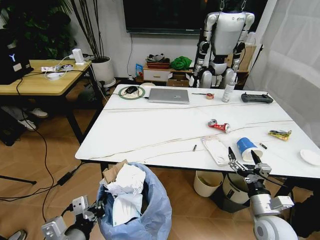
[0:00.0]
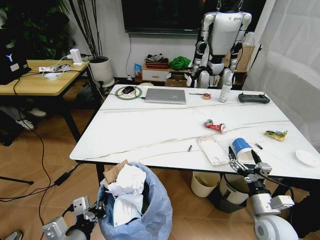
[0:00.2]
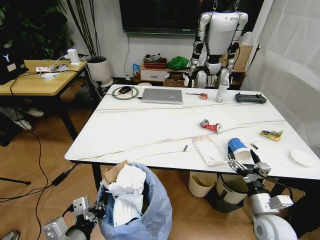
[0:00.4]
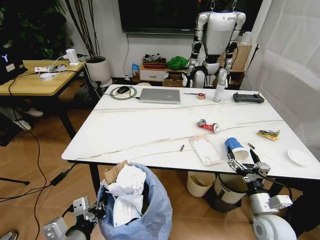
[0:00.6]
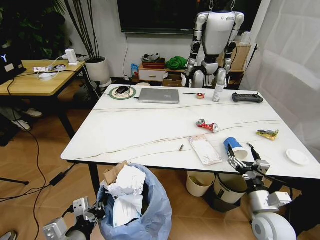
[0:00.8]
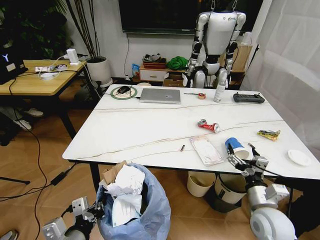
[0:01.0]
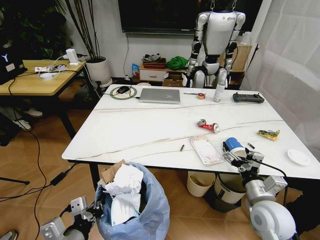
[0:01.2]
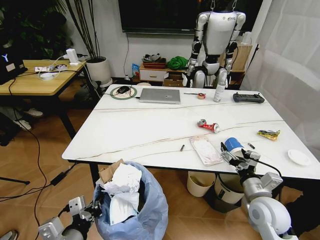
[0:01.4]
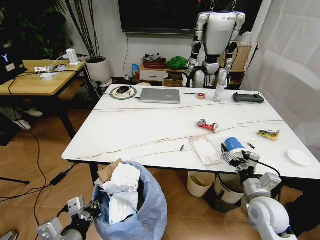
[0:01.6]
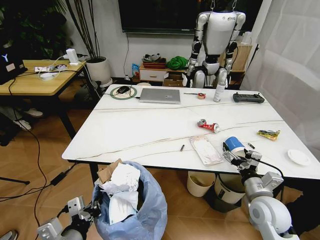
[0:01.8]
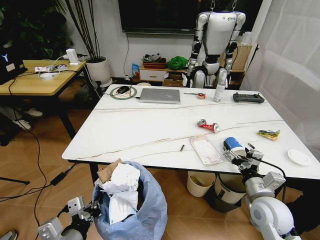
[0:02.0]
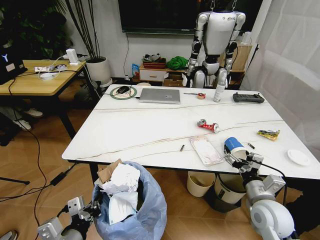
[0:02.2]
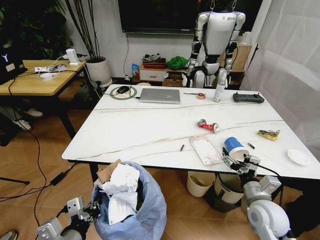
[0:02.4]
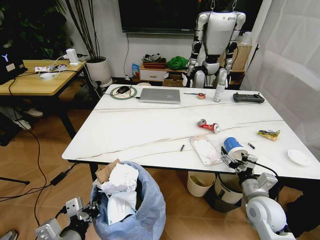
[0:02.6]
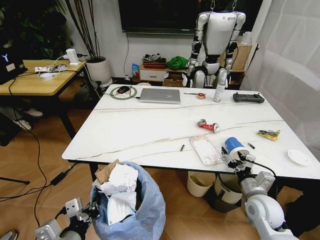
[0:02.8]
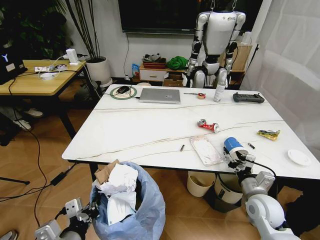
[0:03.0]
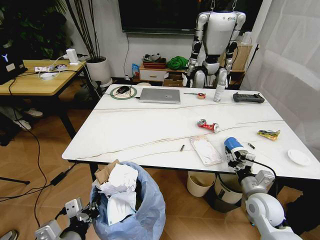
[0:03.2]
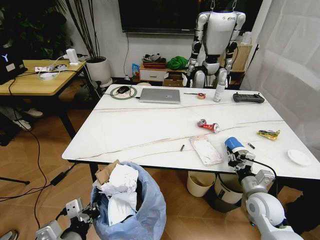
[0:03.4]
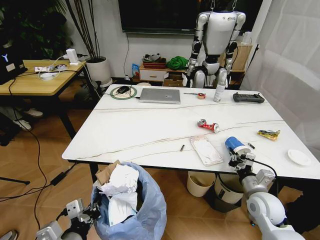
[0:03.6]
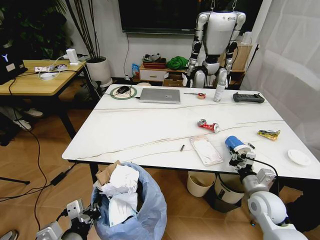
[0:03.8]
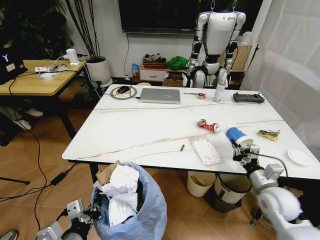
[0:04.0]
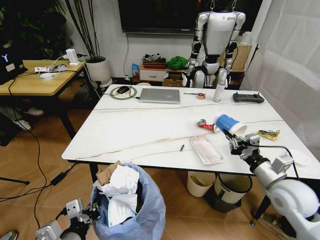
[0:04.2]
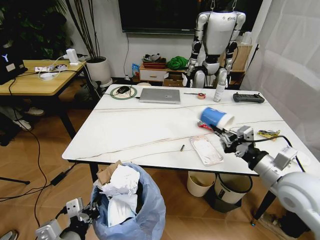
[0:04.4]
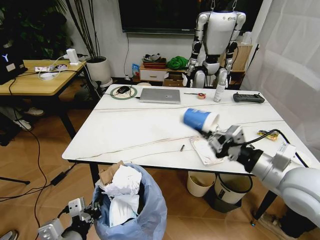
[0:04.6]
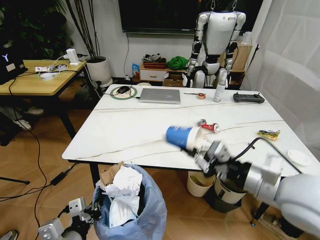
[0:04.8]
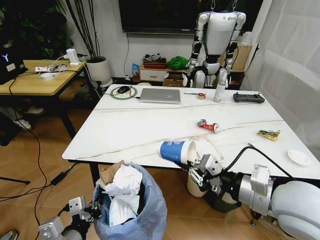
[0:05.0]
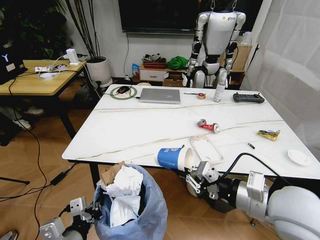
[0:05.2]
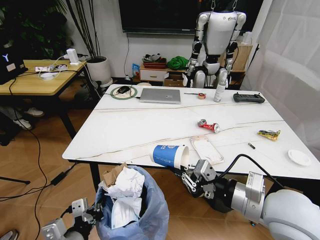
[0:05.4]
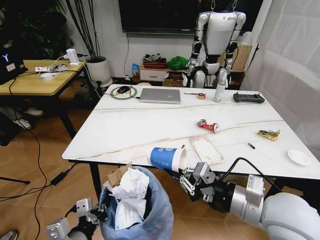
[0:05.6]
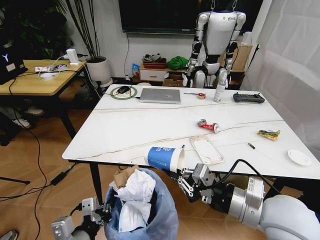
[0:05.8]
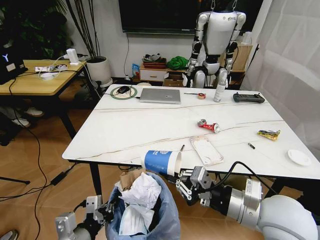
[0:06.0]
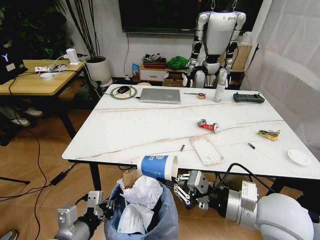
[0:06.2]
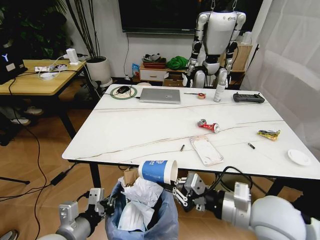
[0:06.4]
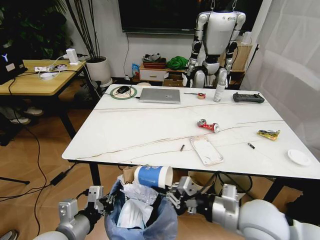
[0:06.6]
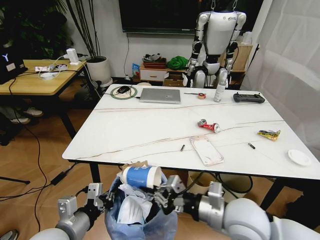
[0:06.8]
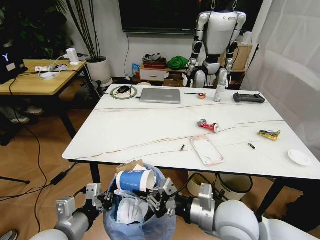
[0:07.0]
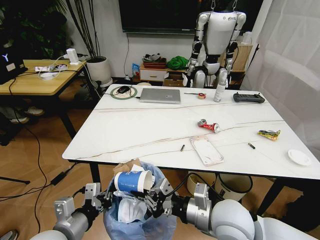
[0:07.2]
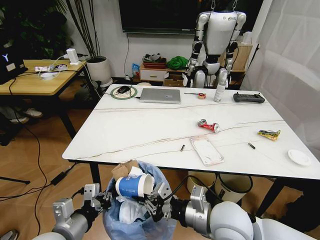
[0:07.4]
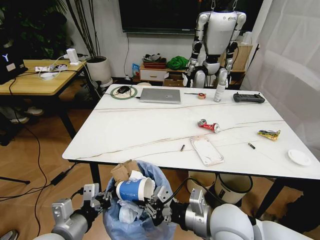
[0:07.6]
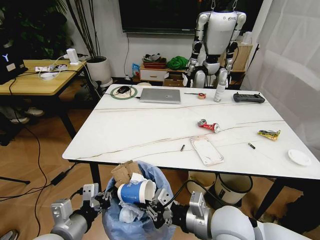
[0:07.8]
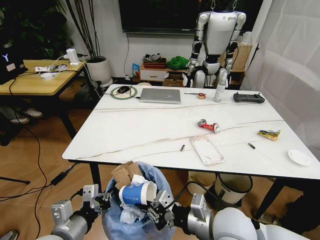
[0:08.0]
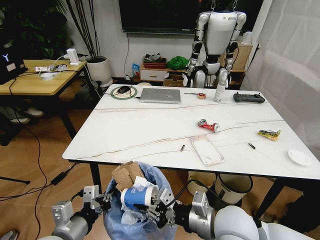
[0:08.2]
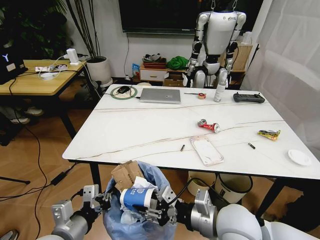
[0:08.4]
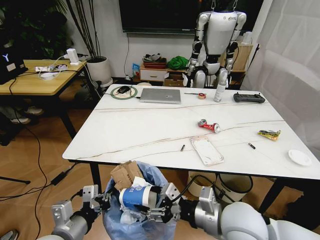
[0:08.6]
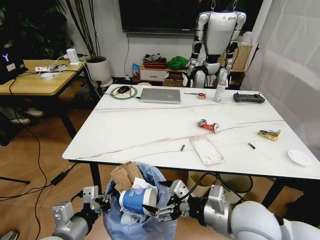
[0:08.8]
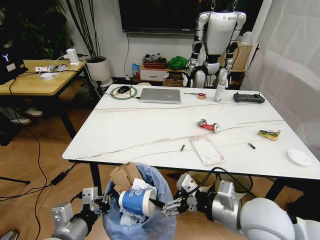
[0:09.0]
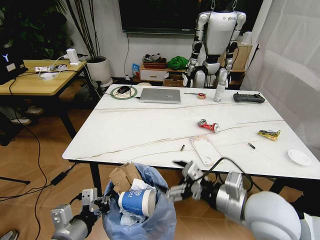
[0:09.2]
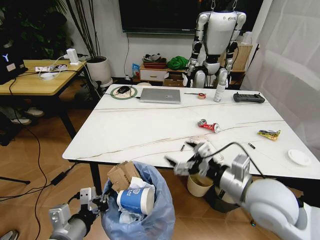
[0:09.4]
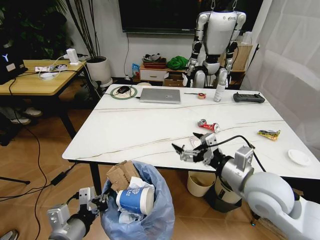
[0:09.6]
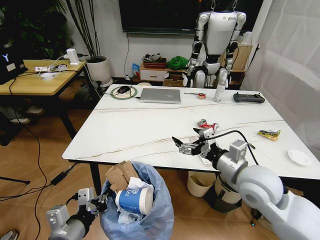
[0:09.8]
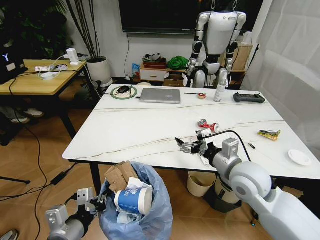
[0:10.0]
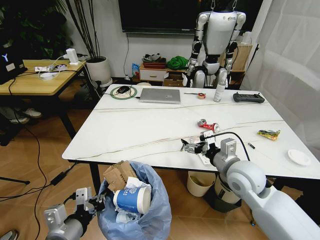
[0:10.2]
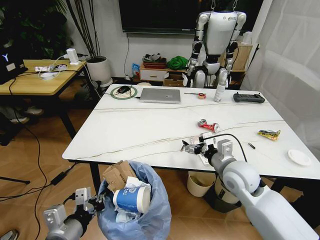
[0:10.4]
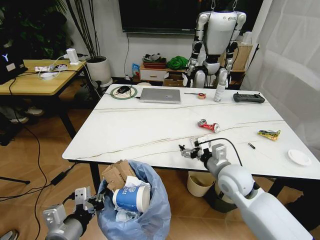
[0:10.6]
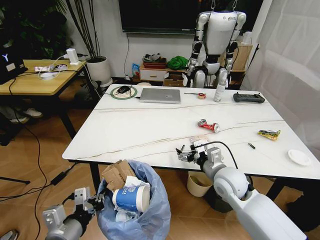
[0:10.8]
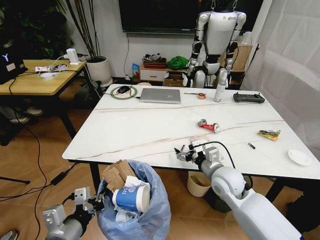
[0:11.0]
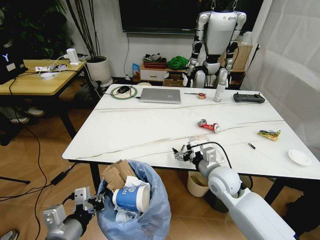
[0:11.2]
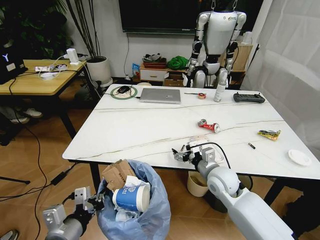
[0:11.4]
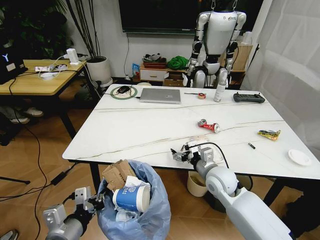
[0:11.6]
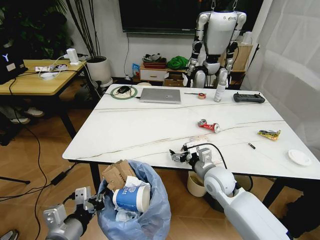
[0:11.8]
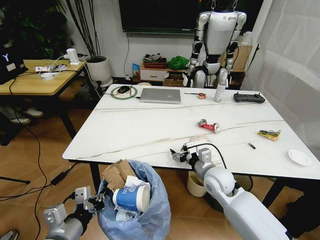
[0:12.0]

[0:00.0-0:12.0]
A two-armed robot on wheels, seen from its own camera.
Task of the whole recording: Pick up the trash bin and place the trash from the table into it.
0:00.0 to 0:01.6: The right gripper changes place by some 5 cm.
0:01.6 to 0:03.0: The right gripper closes up.
0:03.0 to 0:04.4: The right gripper shifts some 15 cm upward, and closes its fingers.
0:04.4 to 0:06.0: The right gripper goes approximately 10 cm to the left and backward.
0:06.0 to 0:07.6: The right gripper goes roughly 10 cm to the left and downward.
0:07.6 to 0:09.0: The right gripper is displaced to the right by some 5 cm, and opens its fingers.
0:09.0 to 0:10.4: The right gripper is displaced forward by roughly 15 cm.
0:10.4 to 0:12.0: The right gripper is displaced downward by approximately 5 cm.

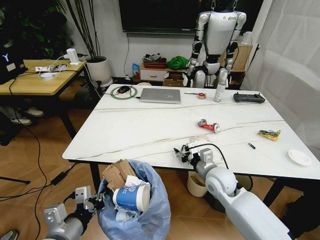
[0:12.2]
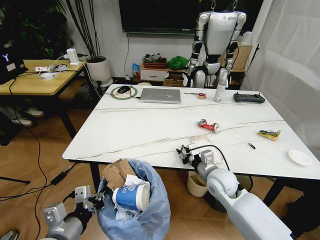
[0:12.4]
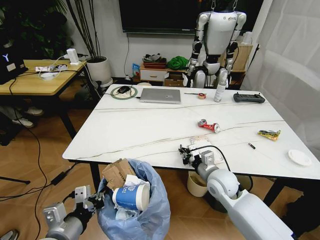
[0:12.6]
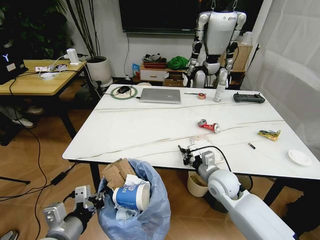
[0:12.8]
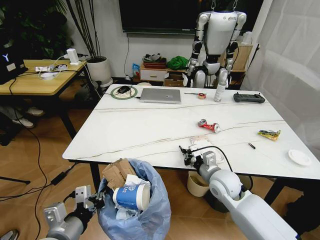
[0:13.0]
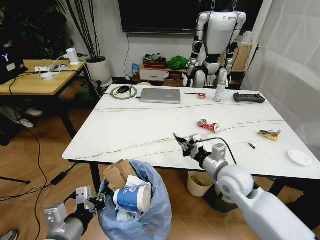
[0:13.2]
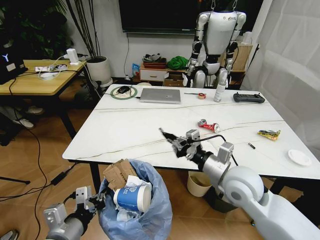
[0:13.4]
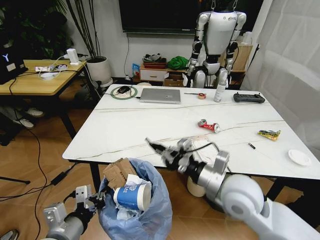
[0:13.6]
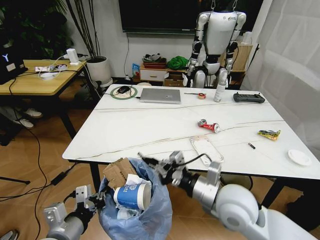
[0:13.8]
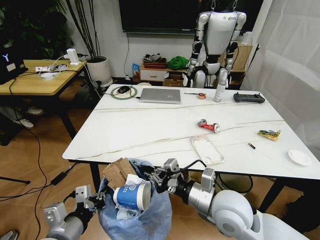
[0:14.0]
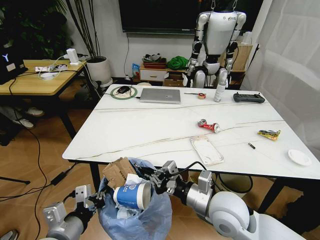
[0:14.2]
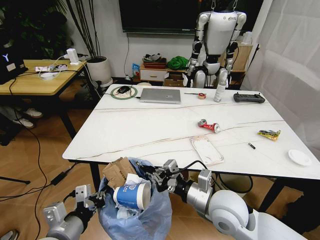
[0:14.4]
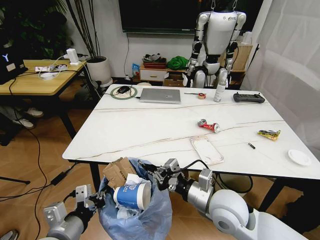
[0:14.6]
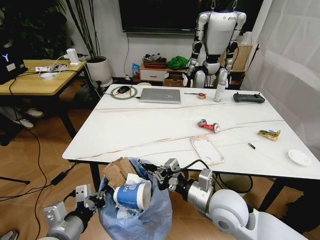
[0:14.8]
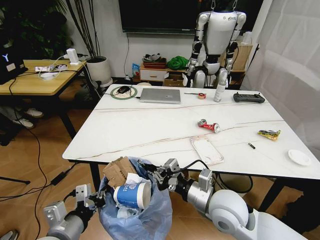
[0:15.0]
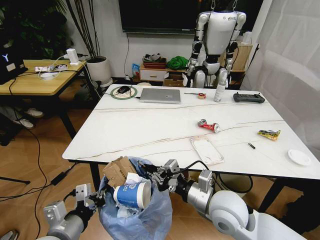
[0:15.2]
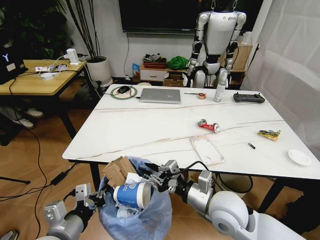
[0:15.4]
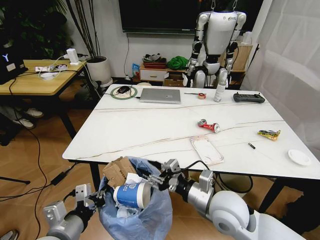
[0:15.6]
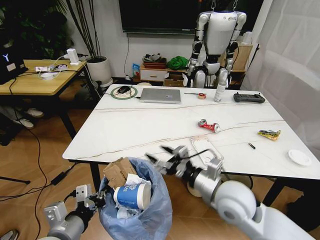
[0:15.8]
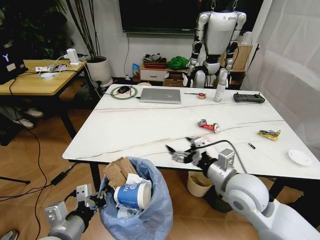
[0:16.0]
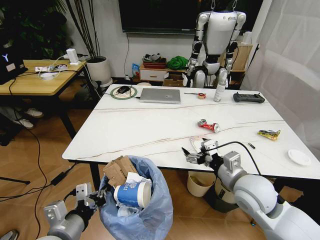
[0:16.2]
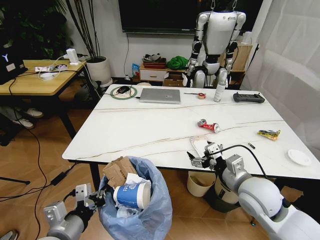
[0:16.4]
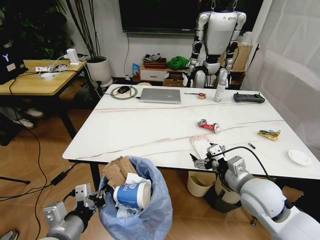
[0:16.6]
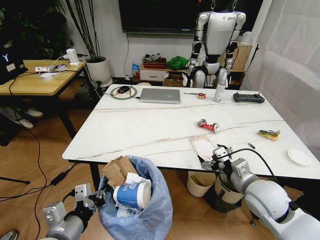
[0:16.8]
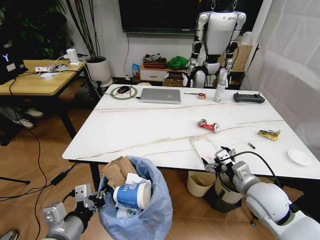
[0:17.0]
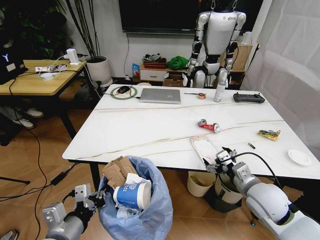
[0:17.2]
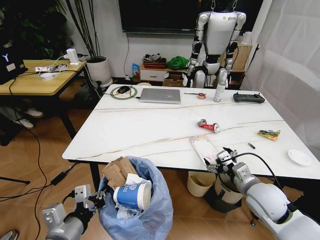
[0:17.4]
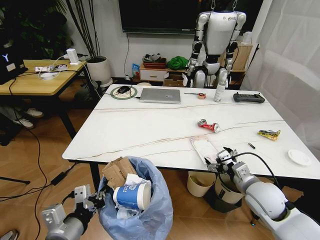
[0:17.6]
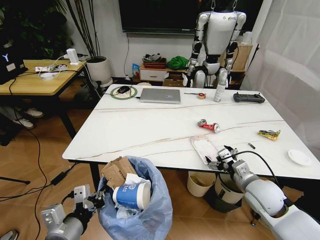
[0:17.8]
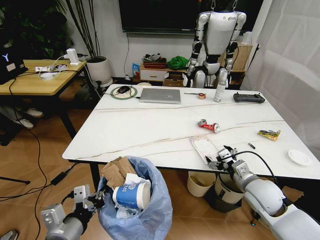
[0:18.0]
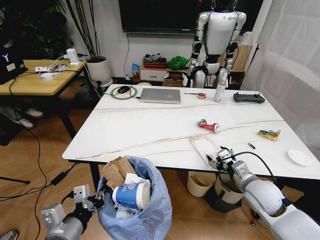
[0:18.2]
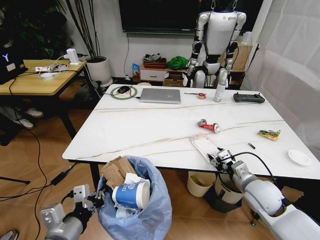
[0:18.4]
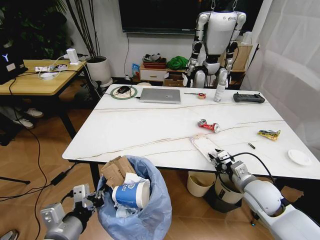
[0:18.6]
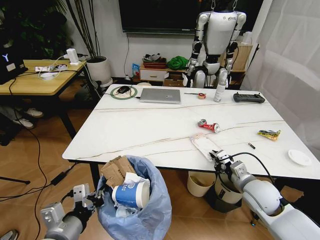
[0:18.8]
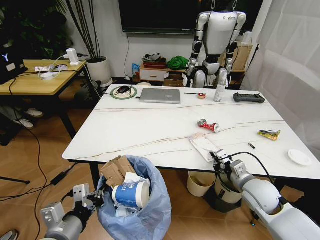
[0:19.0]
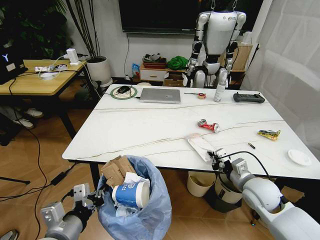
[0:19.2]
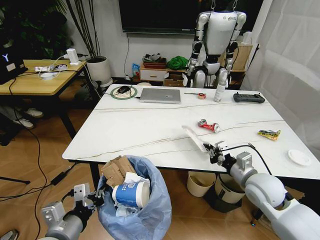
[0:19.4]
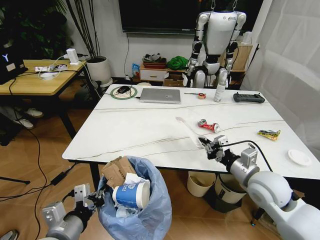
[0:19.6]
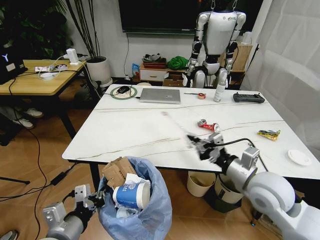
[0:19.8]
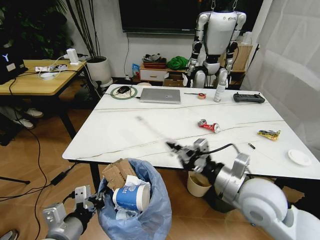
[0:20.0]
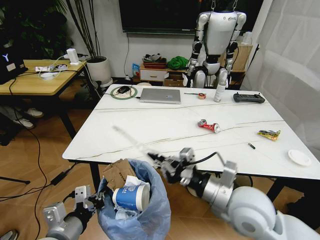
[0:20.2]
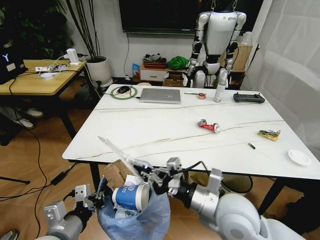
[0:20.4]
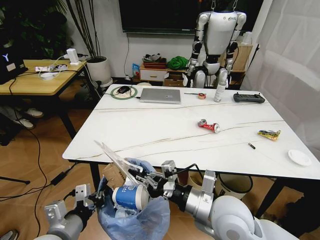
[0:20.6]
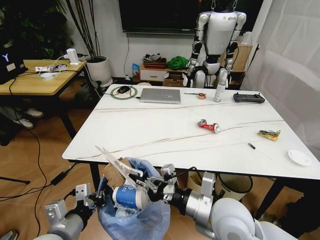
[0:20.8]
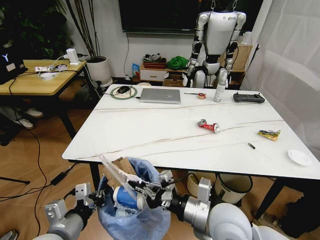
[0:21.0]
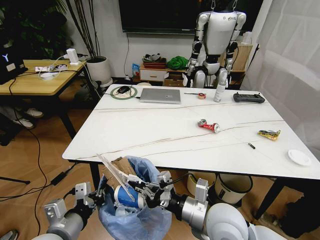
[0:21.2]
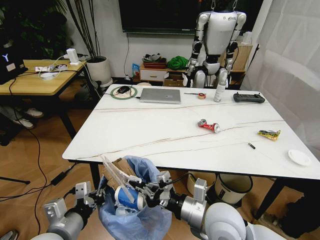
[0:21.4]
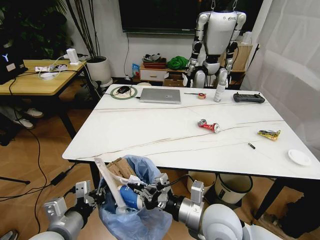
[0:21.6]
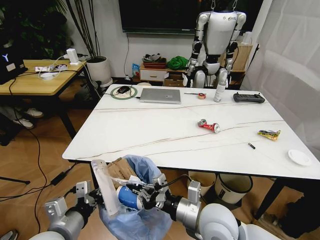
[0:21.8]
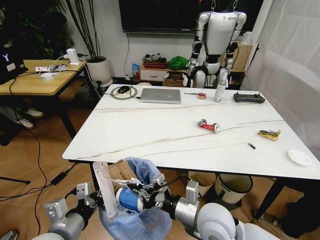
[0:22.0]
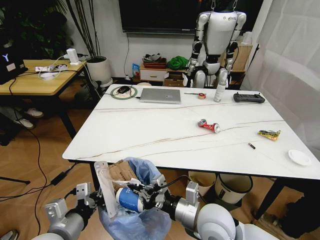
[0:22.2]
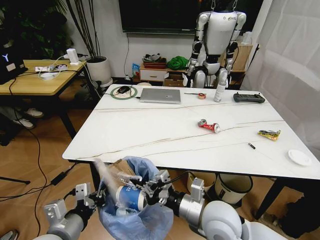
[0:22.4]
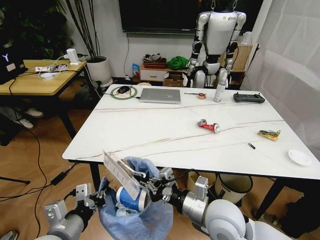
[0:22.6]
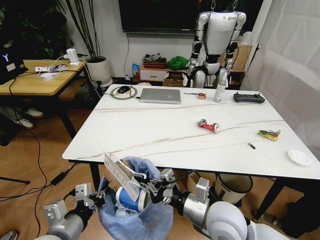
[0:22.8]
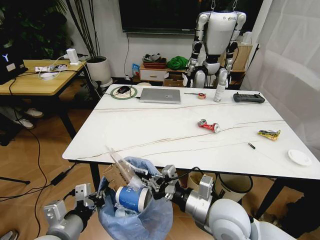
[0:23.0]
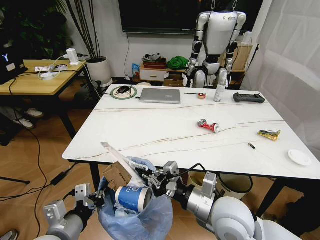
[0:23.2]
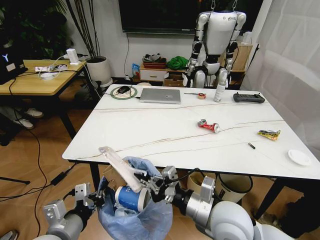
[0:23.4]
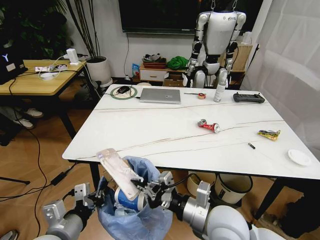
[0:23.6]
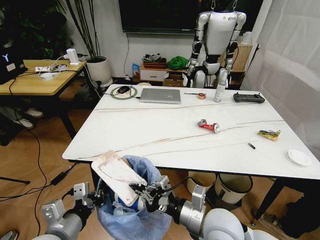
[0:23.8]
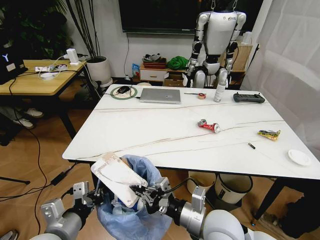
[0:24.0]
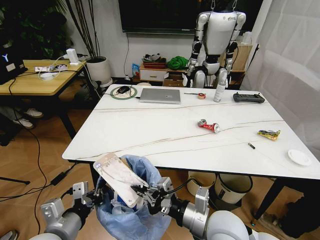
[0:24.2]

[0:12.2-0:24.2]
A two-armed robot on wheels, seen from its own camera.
Task of the whole recording: Pick up the trash bin and place the trash from the table into it.
0:12.2 to 0:13.8: The right gripper travels backward and upward by about 15 cm, and closes its fingers.
0:13.8 to 0:15.2: There are only small adjustments of the grippers.
0:15.2 to 0:16.6: The right gripper travels to the right by approximately 10 cm, and opens.
0:16.6 to 0:18.2: The right gripper moves downward, about 5 cm.
0:18.2 to 0:19.8: The right gripper moves upward, about 10 cm, and closes.
0:19.8 to 0:21.2: The right gripper moves to the left and backward, approximately 15 cm.
0:21.2 to 0:24.2: The grippers make only small movements.
